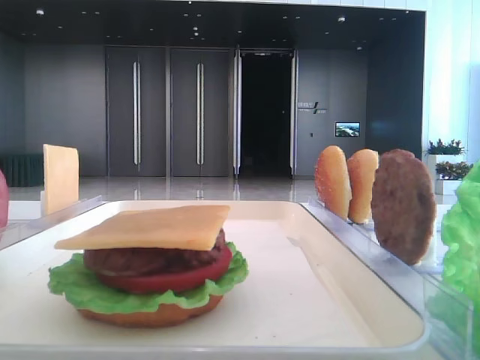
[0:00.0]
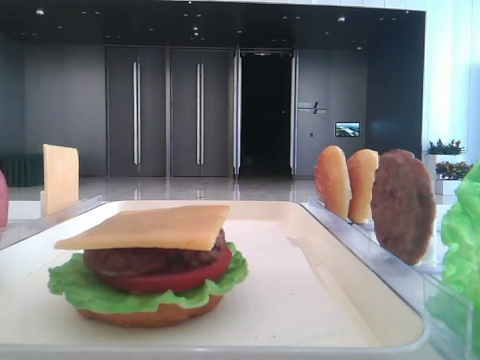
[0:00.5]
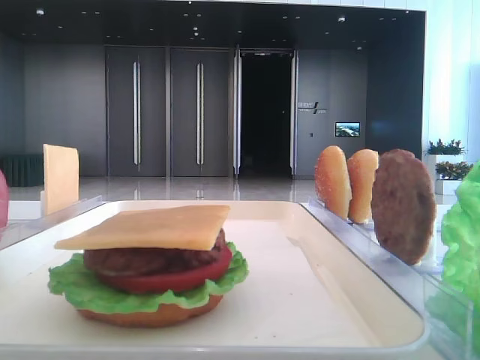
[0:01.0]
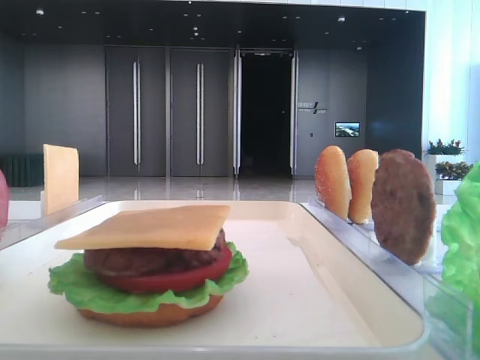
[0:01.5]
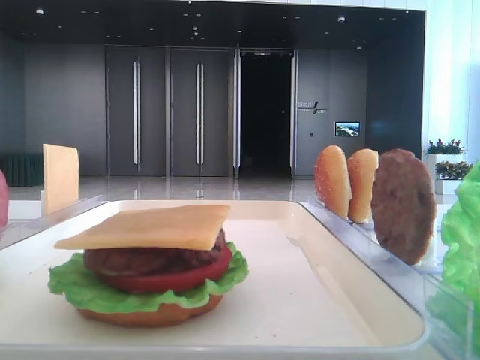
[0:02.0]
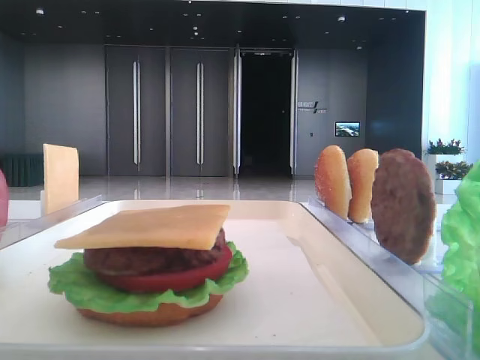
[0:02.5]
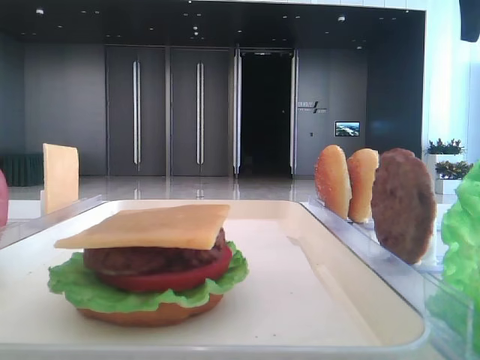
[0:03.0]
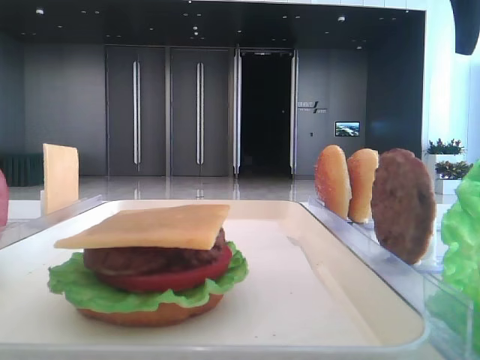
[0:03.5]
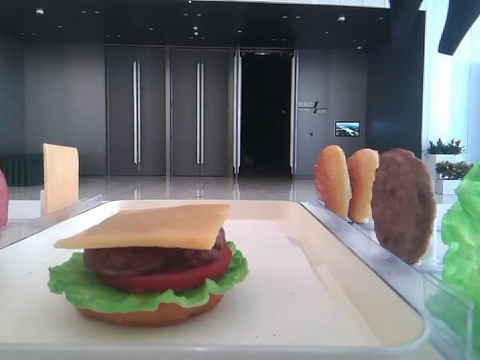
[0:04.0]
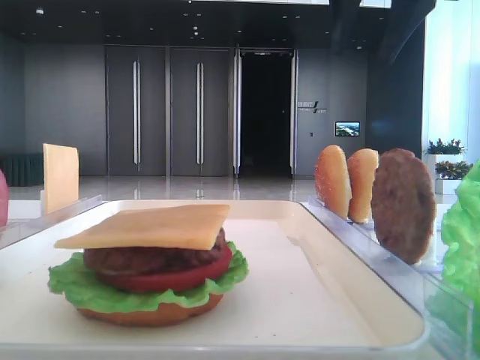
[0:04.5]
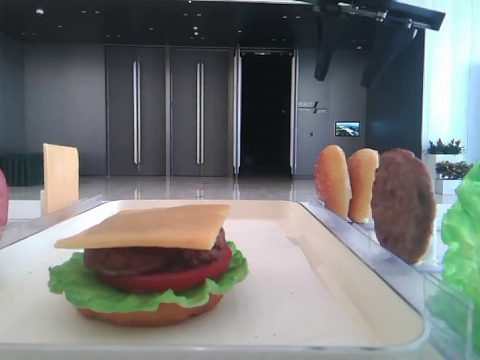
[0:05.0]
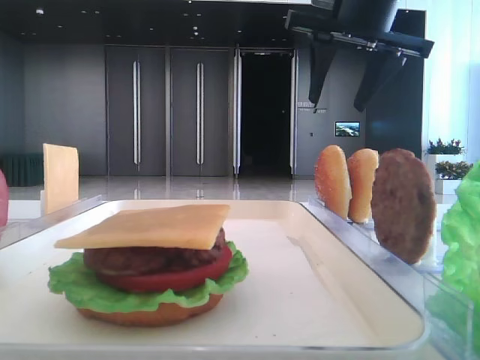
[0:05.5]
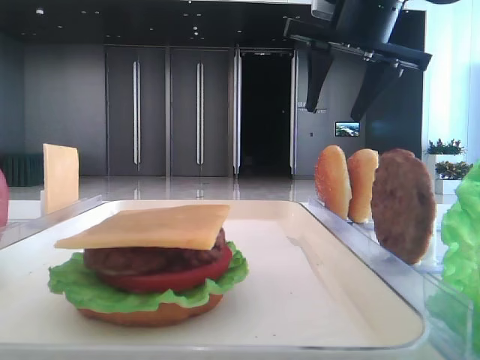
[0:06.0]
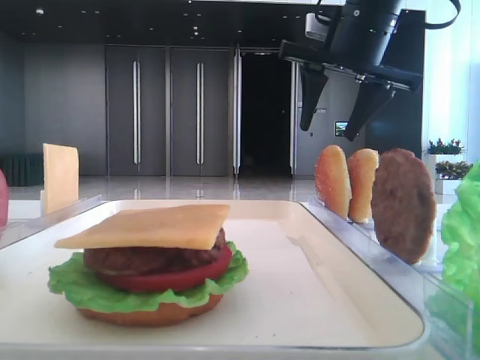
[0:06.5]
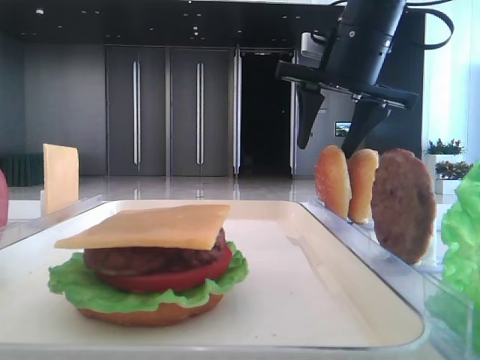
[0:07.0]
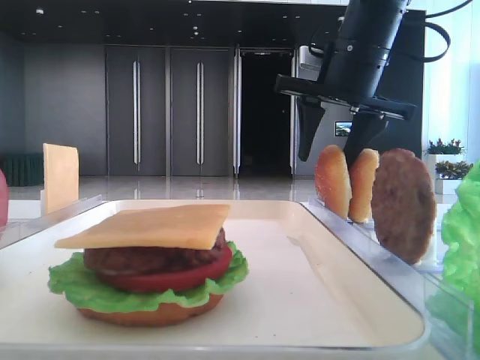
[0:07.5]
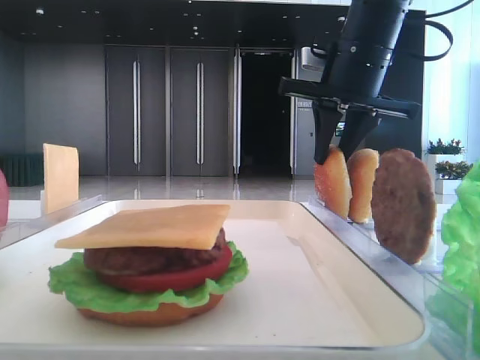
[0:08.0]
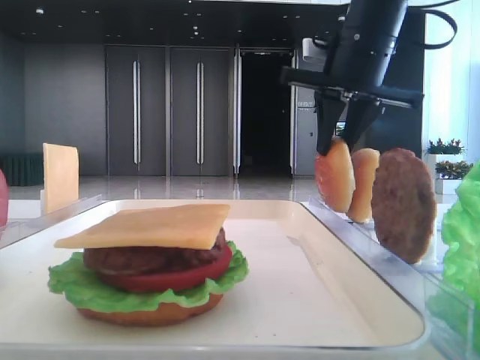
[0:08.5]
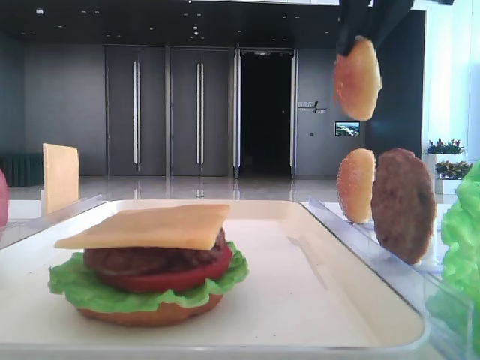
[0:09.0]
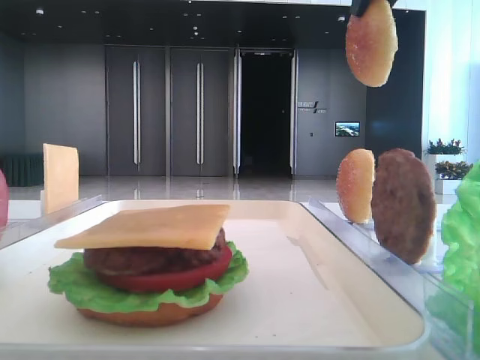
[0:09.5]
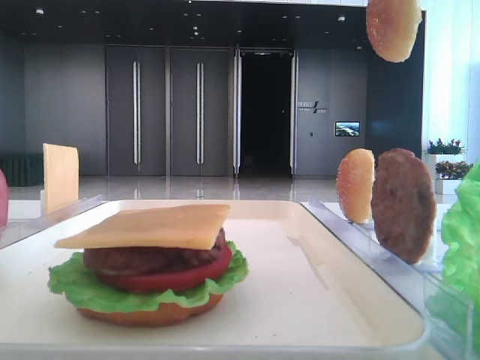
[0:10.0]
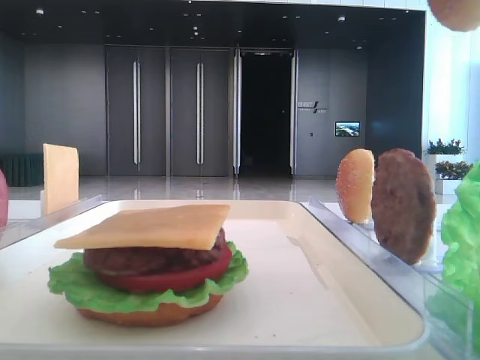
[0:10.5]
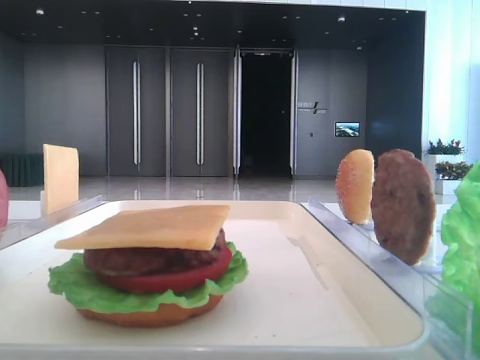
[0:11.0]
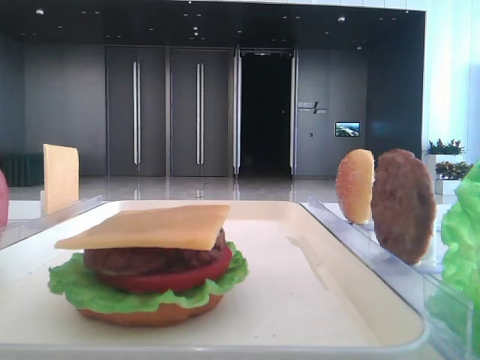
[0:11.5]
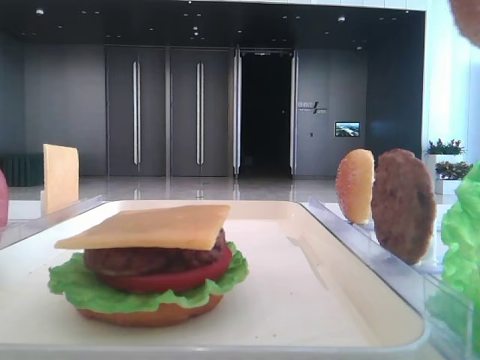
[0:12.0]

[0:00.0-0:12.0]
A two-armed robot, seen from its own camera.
Step, 0:00.0 to 0:08.0: Pick up the top bread slice with the right hand.
0:02.0 to 0:04.0: The right gripper goes about 20 cm forward and to the left, and opens up.
0:04.0 to 0:06.0: The right gripper travels downward and to the left by approximately 10 cm.
0:06.0 to 0:08.0: The right gripper heads downward, covering approximately 5 cm, and closes up.
0:08.0 to 0:10.0: The right gripper is displaced upward and backward by some 20 cm.
0:10.0 to 0:12.0: The right gripper moves backward, about 20 cm.

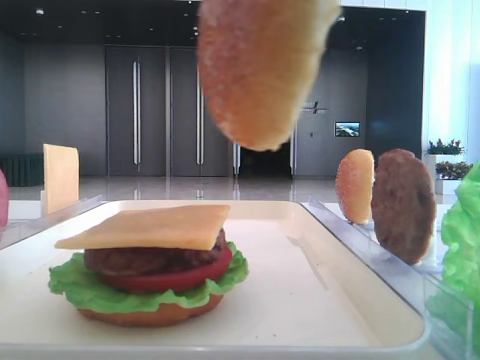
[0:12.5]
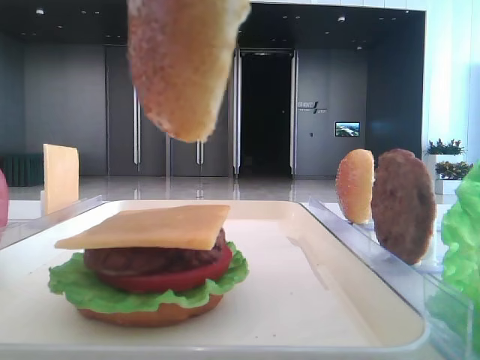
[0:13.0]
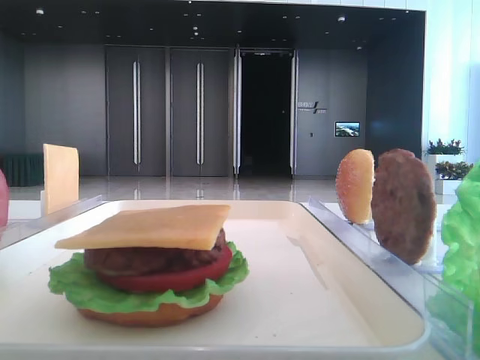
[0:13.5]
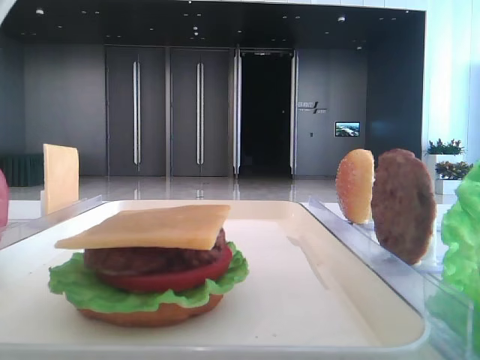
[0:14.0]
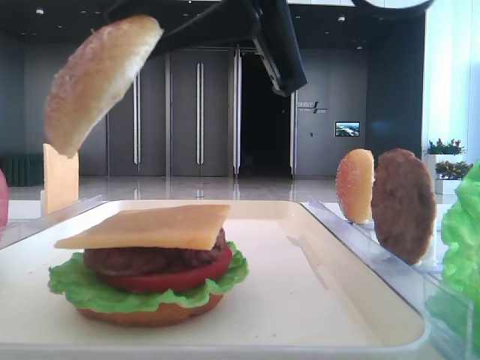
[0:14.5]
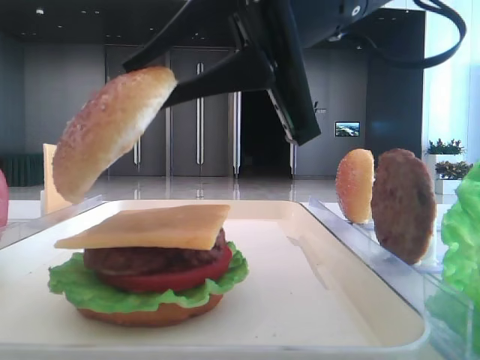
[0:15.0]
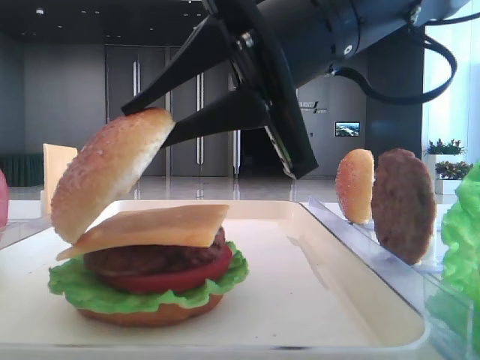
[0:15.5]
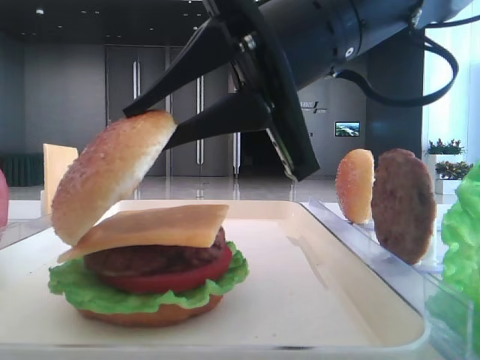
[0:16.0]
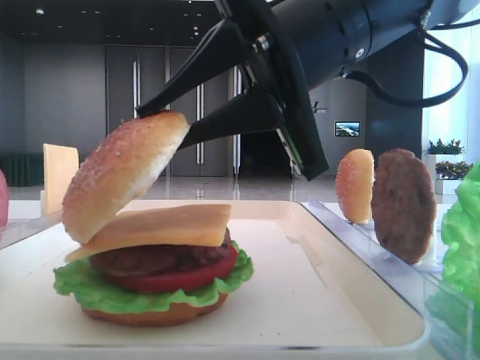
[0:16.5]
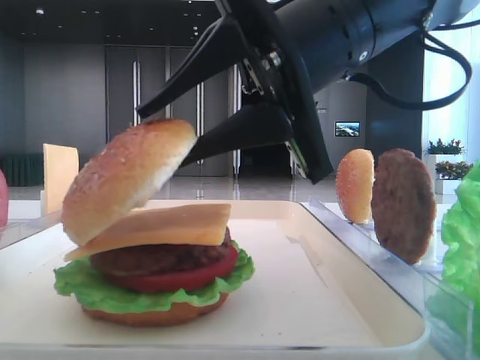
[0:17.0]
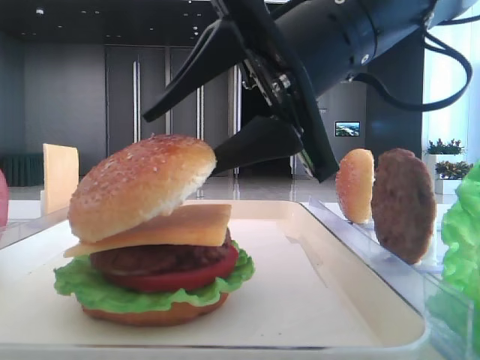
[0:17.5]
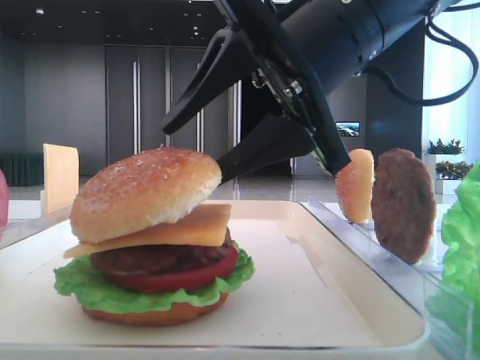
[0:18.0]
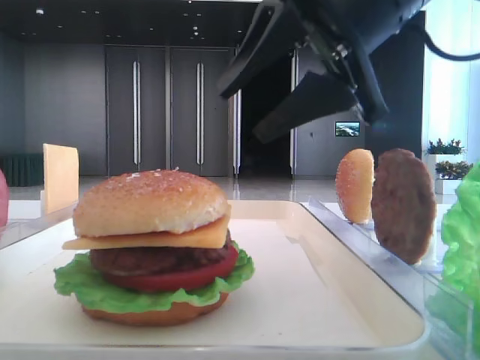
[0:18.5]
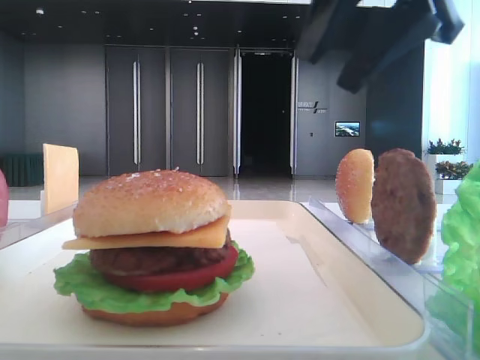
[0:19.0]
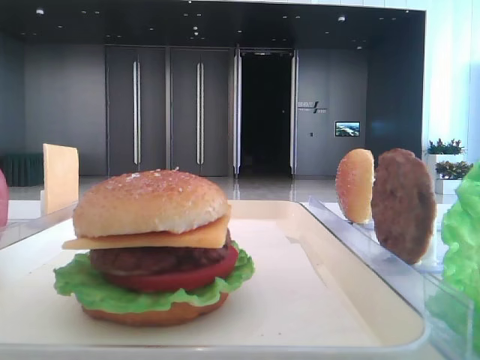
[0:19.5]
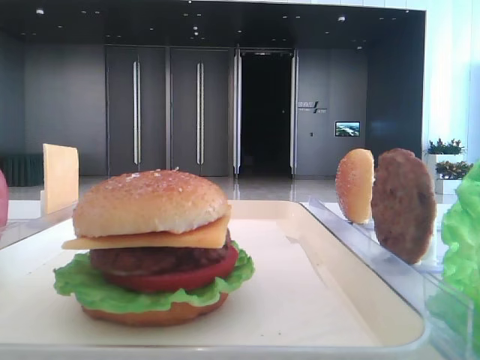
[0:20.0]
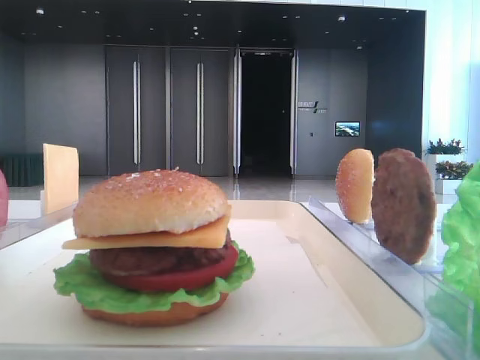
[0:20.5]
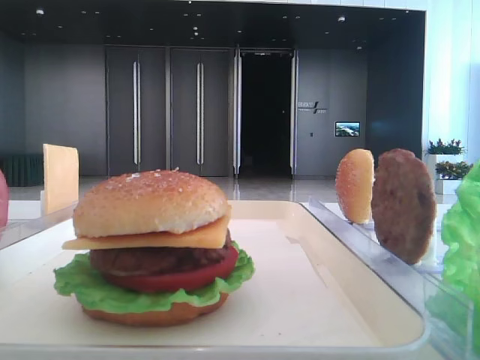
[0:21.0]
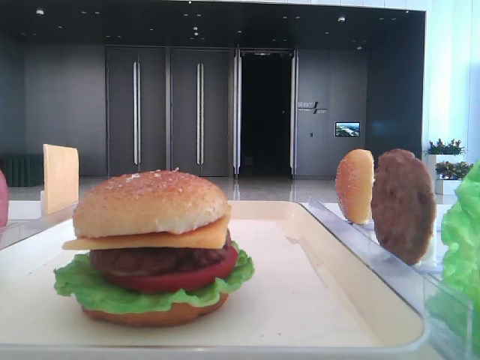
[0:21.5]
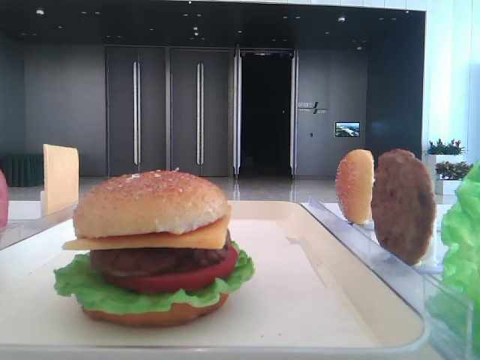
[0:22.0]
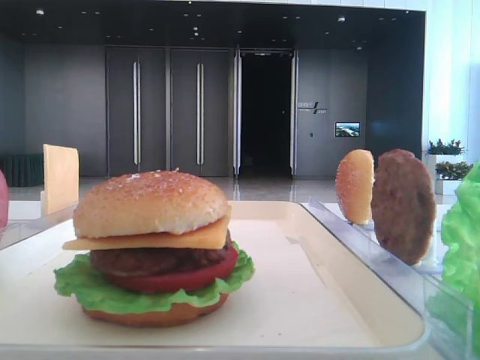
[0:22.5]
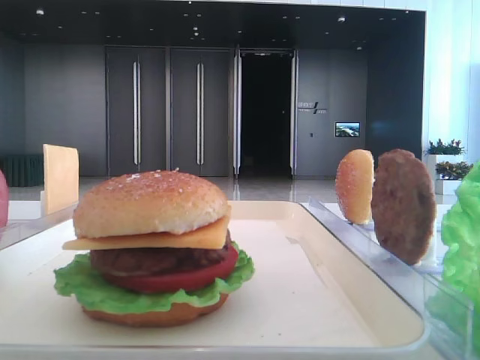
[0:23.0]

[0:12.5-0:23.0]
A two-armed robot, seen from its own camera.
Step, 0:12.5 to 0:18.0: Place the top bread slice on the cheese with the right hand.
0:12.5 to 0:14.5: The right gripper shifts some 15 cm forward and downward.
0:14.5 to 0:16.5: The right gripper heads downward, covering some 5 cm.
0:16.5 to 0:19.0: The right gripper heads upward and to the right, covering roughly 10 cm, and opens up.
0:19.0 to 0:21.0: The right gripper heads to the right, backward and upward, covering some 25 cm.

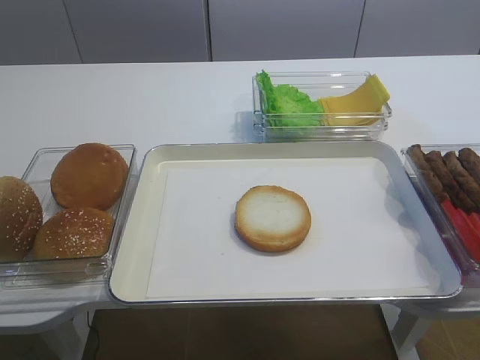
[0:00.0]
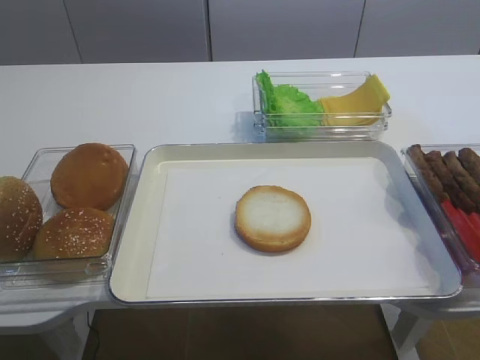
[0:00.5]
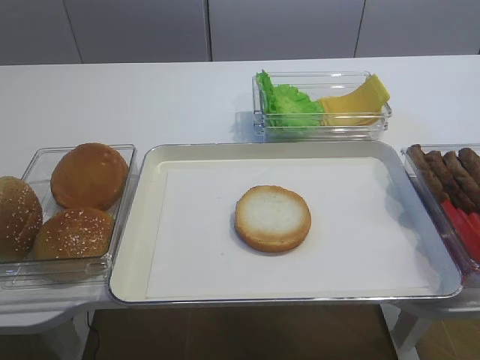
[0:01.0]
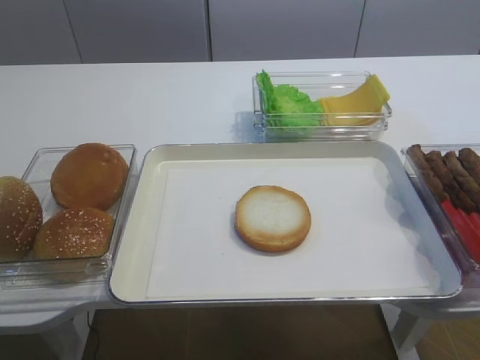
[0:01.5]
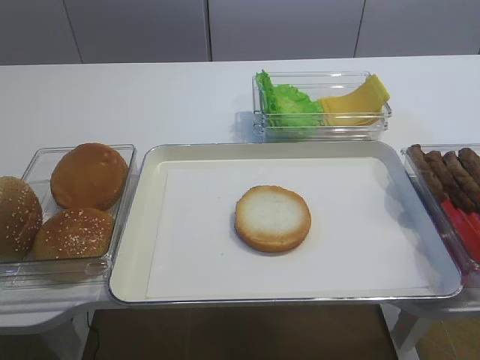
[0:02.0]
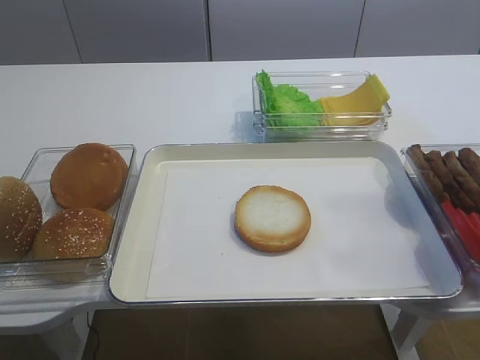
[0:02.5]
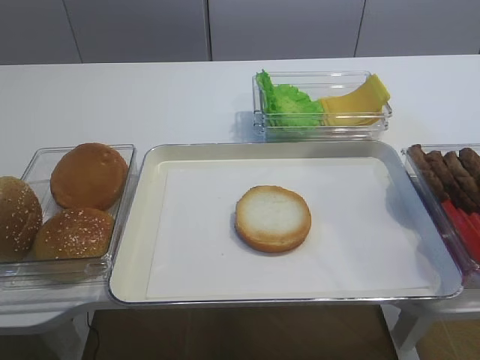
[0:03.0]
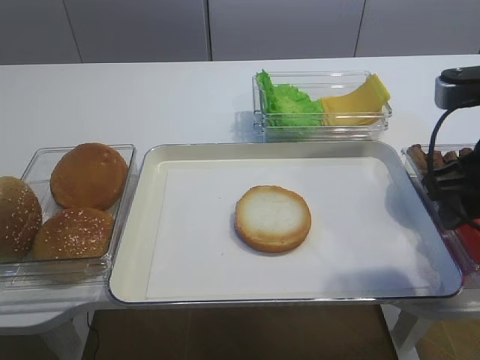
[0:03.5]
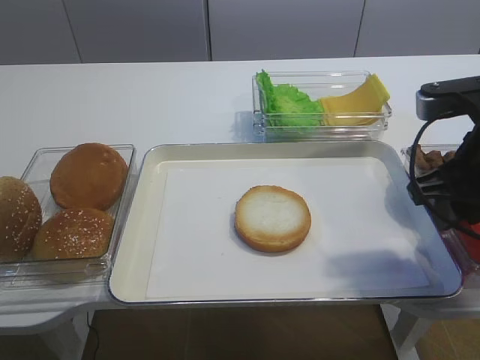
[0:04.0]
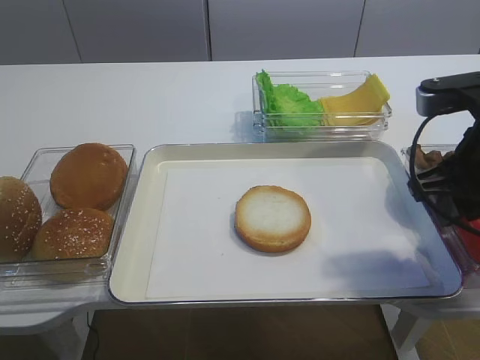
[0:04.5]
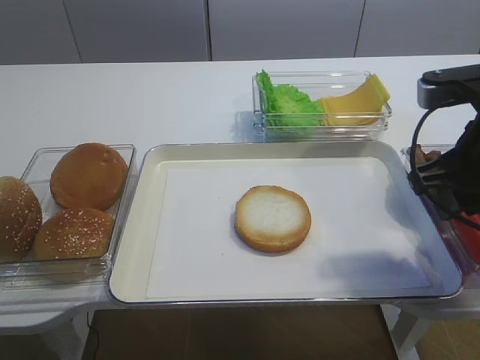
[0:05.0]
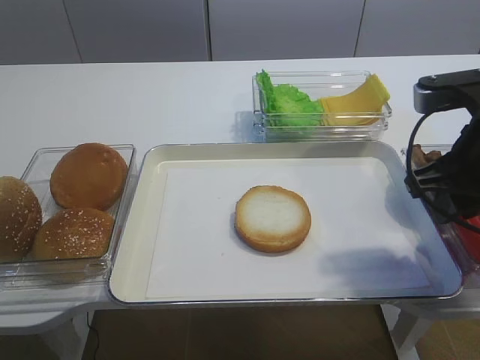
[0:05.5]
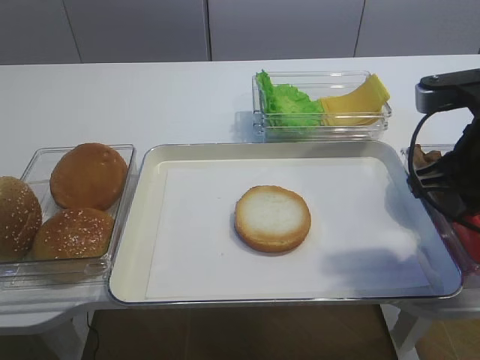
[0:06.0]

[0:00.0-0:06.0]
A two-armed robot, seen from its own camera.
0:02.0 to 0:04.0: The right gripper goes approximately 25 cm forward, and closes up.
0:04.0 to 0:06.0: The right gripper closes up.
